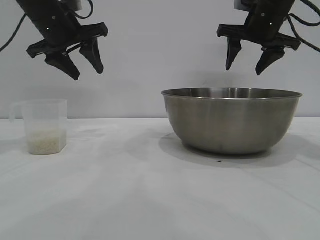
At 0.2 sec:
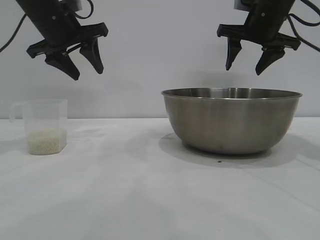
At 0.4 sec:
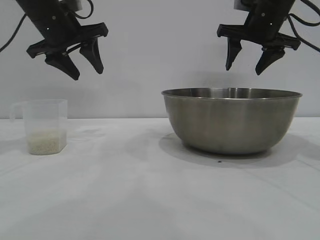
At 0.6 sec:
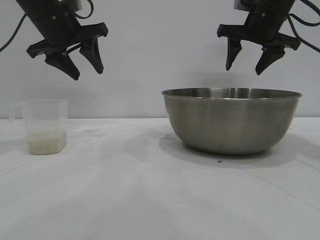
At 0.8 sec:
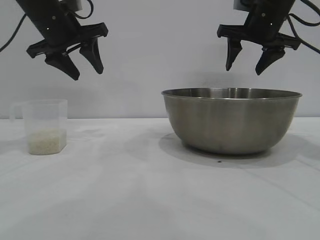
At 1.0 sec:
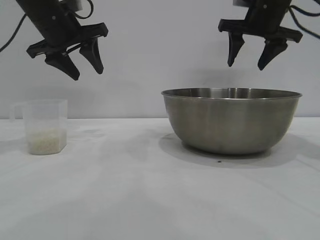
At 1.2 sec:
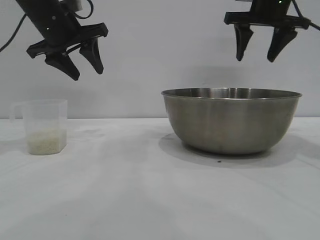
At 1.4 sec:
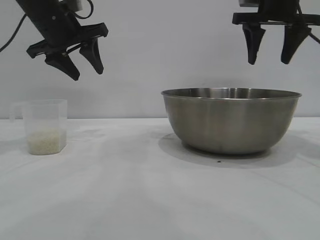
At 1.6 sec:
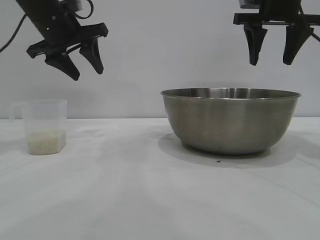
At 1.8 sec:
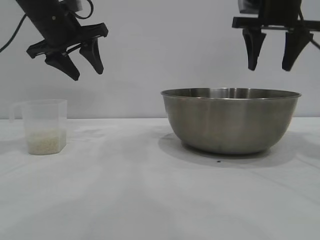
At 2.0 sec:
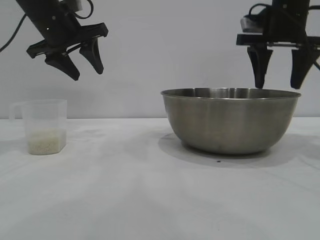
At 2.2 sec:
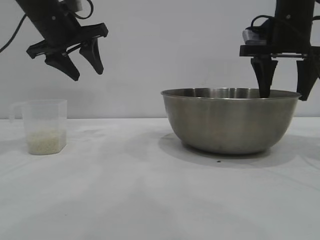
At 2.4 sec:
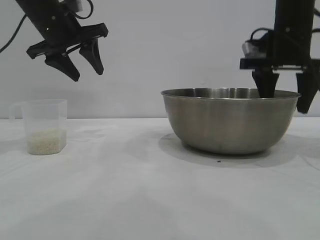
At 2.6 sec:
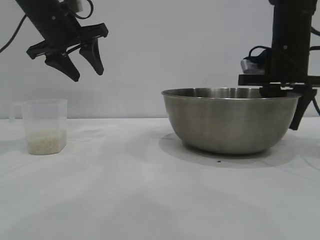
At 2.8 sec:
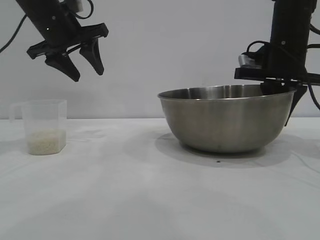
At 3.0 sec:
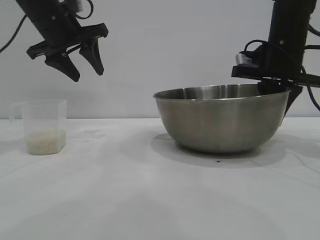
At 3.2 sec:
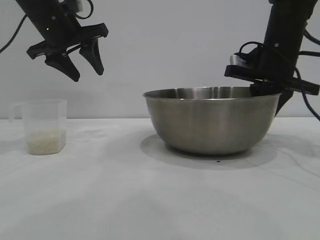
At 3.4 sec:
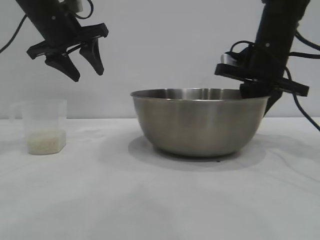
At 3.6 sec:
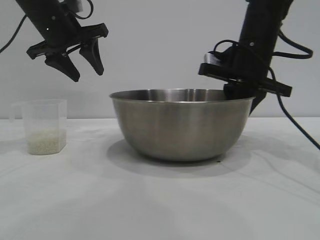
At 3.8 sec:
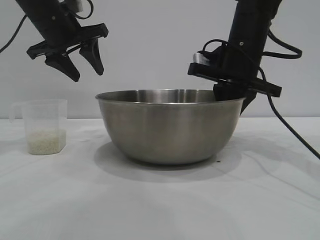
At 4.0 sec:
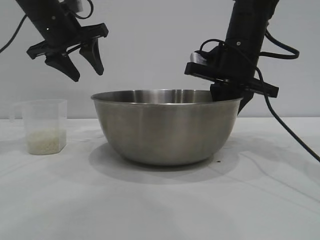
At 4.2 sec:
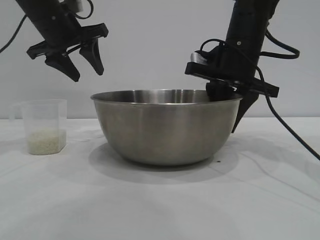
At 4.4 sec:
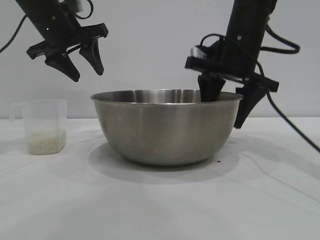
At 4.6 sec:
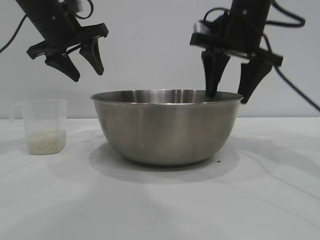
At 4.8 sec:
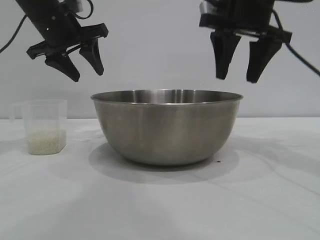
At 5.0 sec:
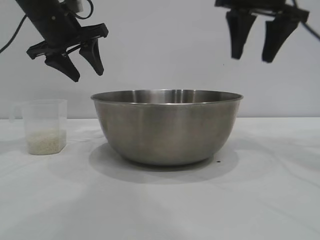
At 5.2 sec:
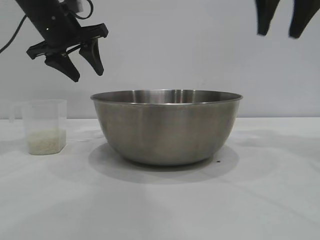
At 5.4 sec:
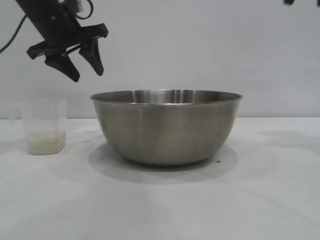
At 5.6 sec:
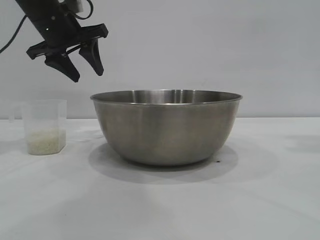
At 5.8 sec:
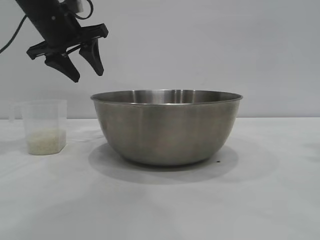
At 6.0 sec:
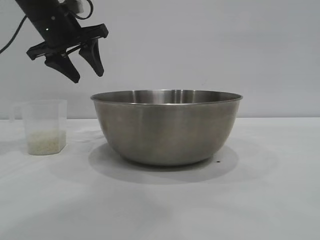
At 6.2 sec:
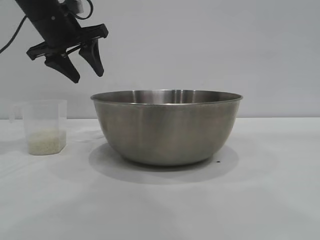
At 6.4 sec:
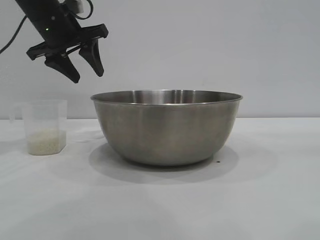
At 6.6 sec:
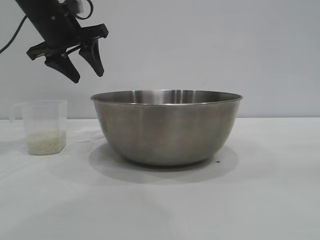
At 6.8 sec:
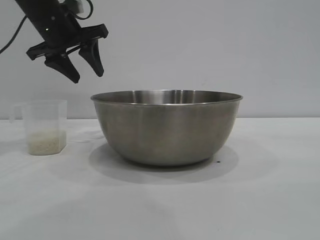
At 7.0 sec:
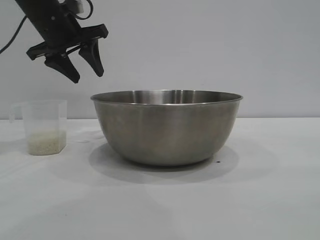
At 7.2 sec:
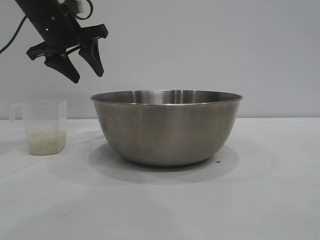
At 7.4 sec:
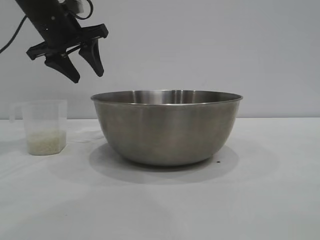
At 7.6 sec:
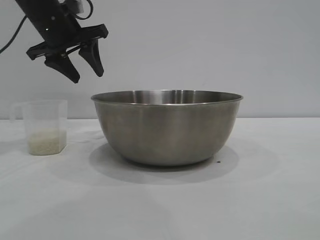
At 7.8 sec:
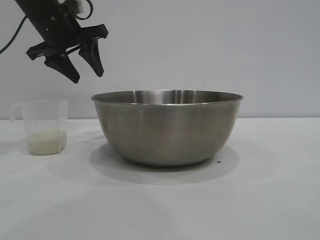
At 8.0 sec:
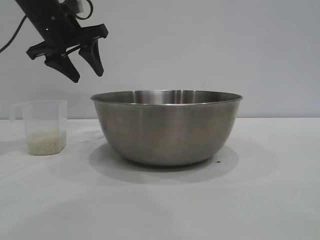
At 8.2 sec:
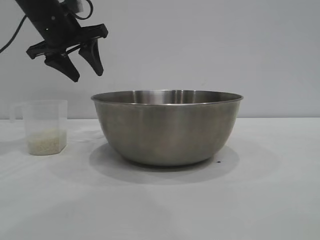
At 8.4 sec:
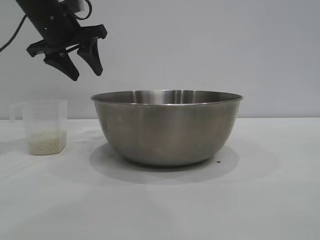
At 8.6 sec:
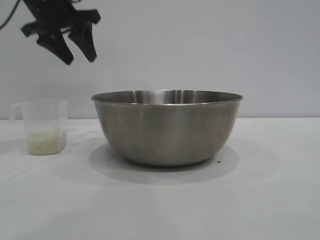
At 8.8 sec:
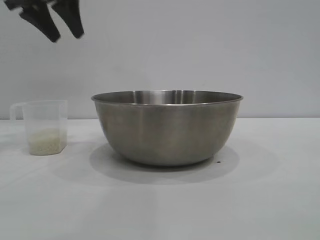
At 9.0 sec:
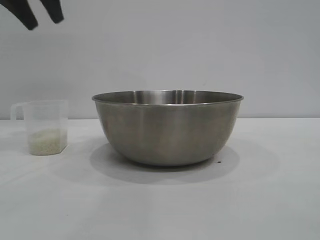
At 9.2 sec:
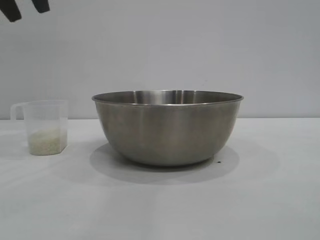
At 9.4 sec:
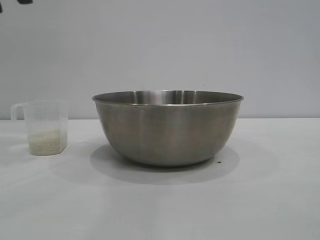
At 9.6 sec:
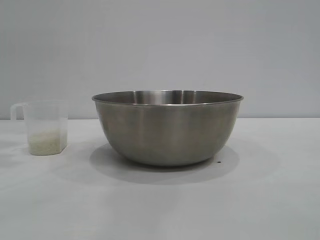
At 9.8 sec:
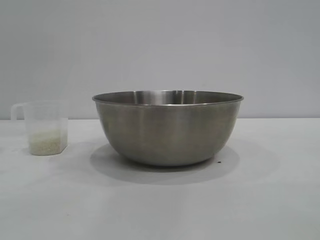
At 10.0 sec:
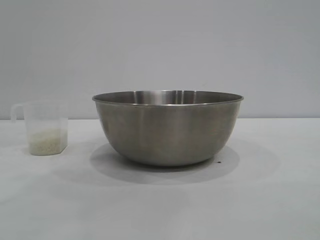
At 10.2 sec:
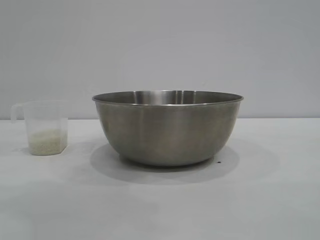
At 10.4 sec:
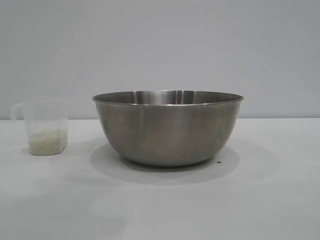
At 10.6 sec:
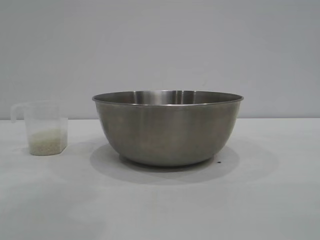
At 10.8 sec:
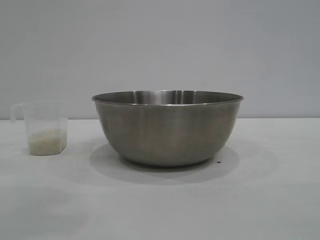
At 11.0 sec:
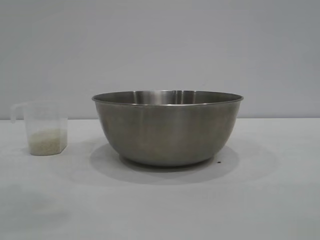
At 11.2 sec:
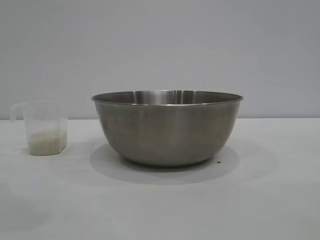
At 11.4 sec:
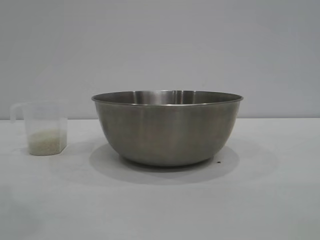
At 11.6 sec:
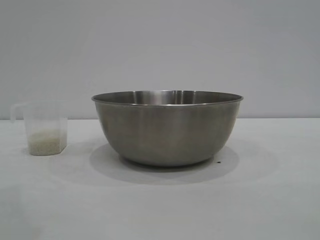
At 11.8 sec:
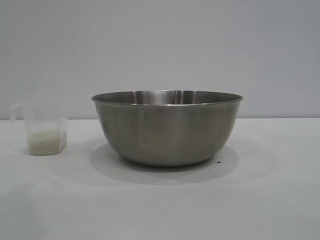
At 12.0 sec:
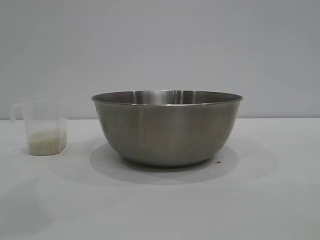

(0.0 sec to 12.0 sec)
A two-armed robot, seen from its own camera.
Task of the whole recording: the right gripper grasp the rice container and place it in the center of the table, the left gripper grasp the rice scoop and pour the rice into the rice container.
Step, 0.0 sec - 4.8 sec: Move the bowl to the center of view with the right gripper.

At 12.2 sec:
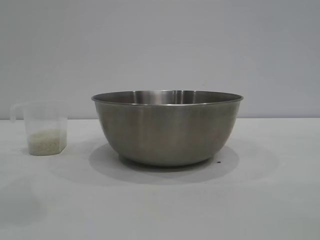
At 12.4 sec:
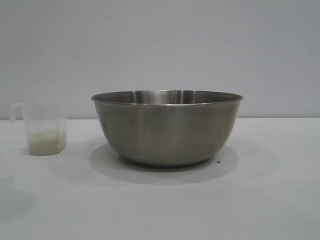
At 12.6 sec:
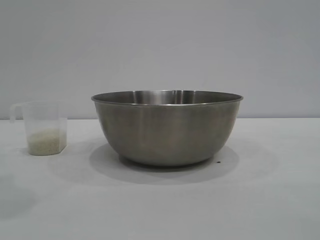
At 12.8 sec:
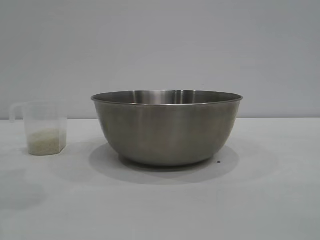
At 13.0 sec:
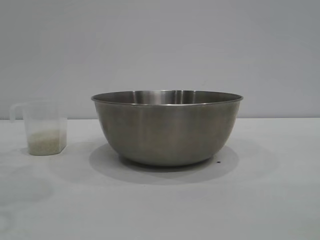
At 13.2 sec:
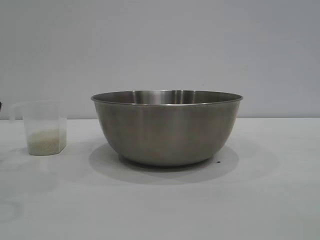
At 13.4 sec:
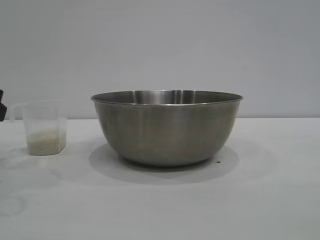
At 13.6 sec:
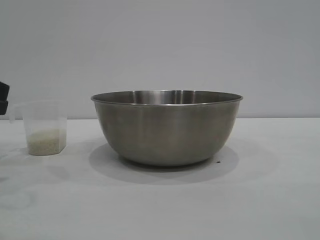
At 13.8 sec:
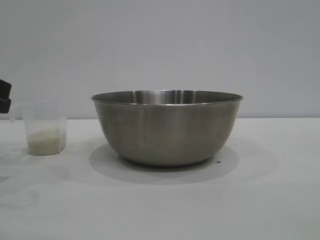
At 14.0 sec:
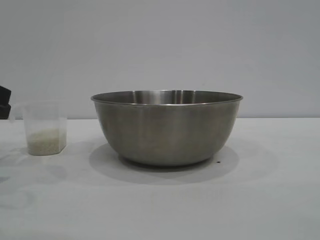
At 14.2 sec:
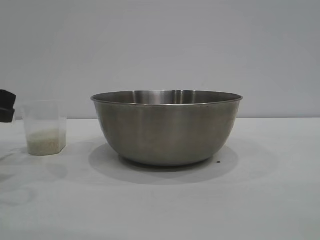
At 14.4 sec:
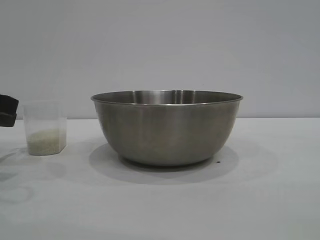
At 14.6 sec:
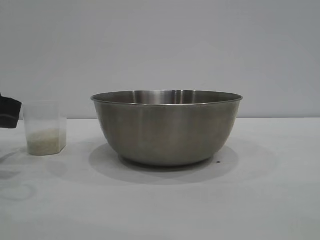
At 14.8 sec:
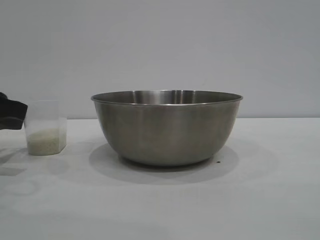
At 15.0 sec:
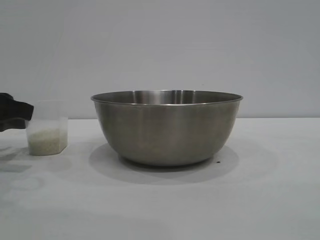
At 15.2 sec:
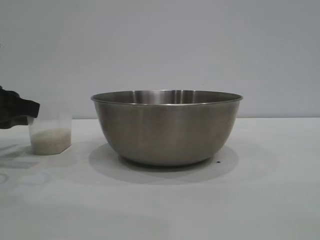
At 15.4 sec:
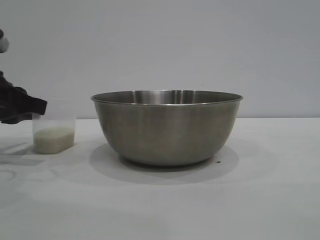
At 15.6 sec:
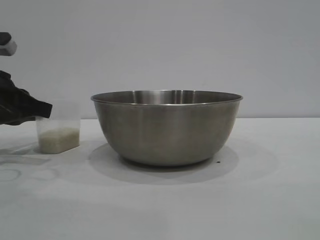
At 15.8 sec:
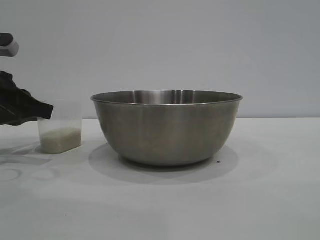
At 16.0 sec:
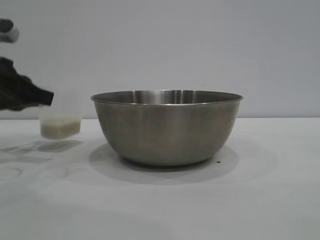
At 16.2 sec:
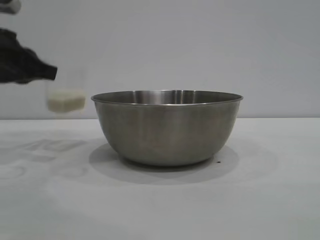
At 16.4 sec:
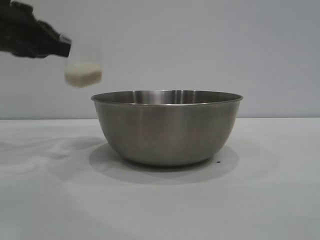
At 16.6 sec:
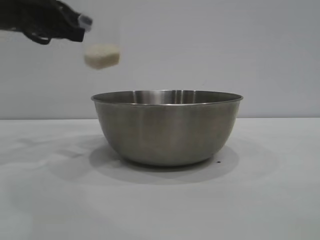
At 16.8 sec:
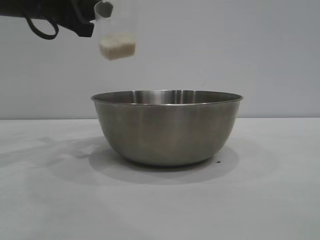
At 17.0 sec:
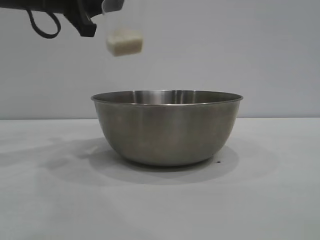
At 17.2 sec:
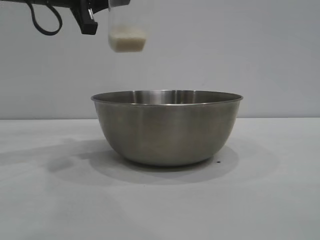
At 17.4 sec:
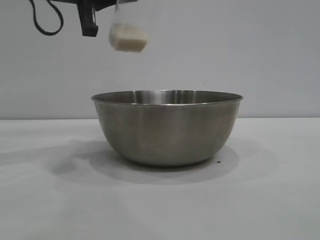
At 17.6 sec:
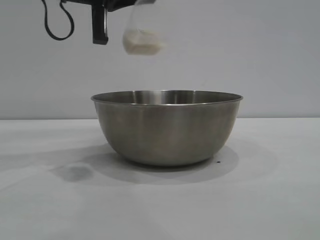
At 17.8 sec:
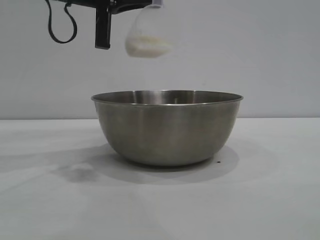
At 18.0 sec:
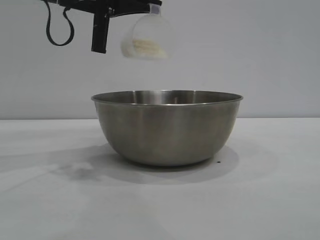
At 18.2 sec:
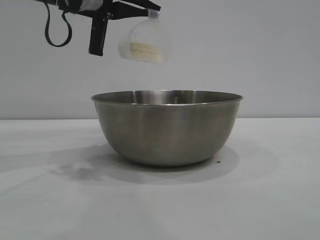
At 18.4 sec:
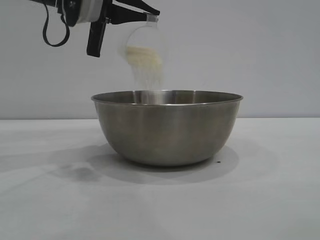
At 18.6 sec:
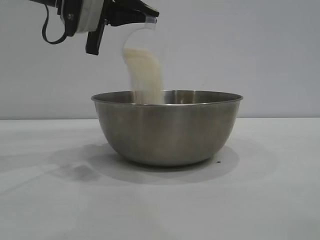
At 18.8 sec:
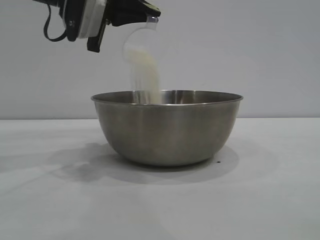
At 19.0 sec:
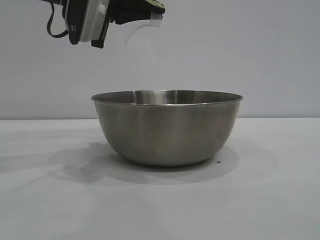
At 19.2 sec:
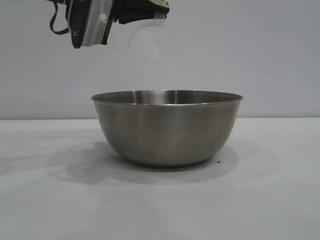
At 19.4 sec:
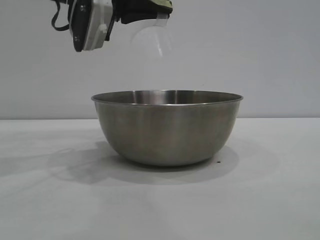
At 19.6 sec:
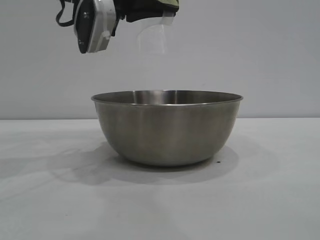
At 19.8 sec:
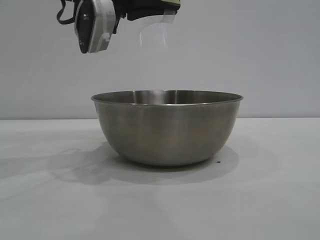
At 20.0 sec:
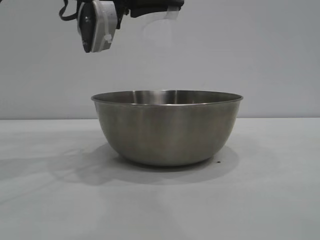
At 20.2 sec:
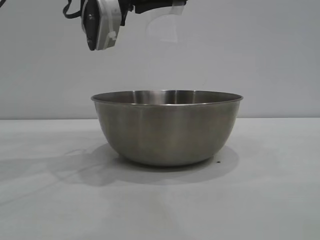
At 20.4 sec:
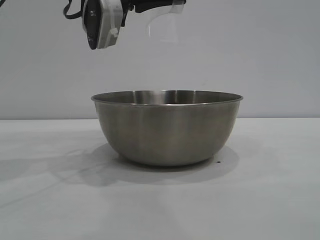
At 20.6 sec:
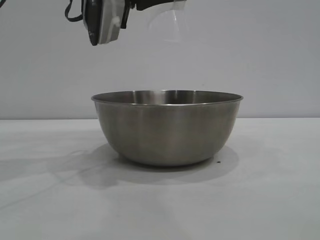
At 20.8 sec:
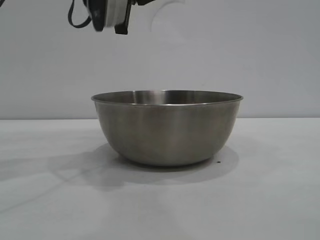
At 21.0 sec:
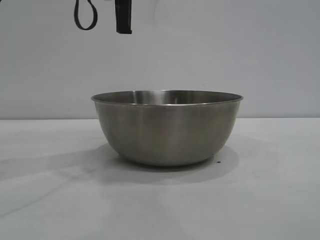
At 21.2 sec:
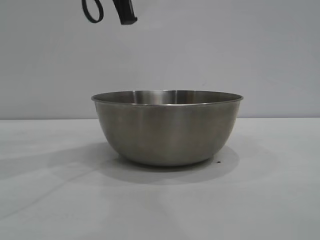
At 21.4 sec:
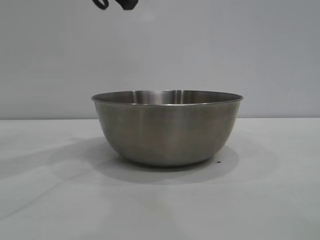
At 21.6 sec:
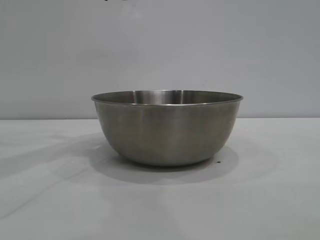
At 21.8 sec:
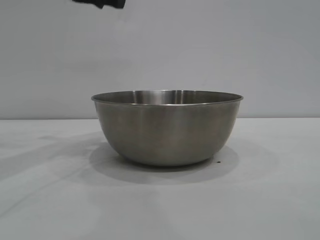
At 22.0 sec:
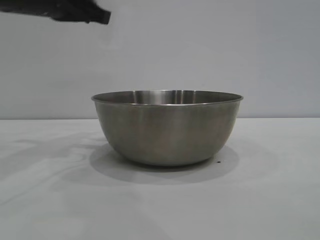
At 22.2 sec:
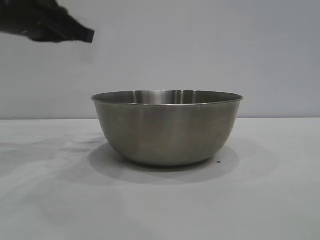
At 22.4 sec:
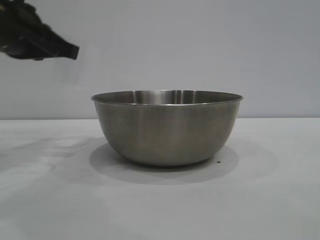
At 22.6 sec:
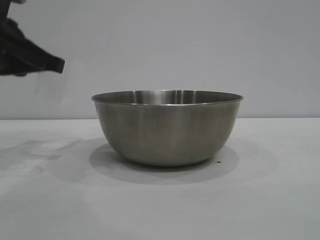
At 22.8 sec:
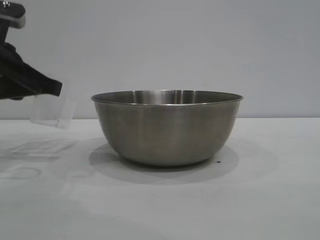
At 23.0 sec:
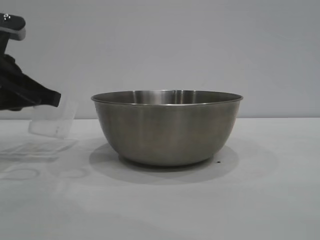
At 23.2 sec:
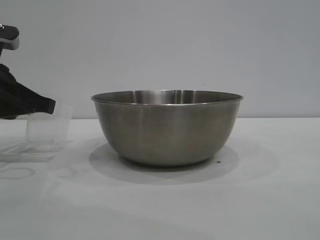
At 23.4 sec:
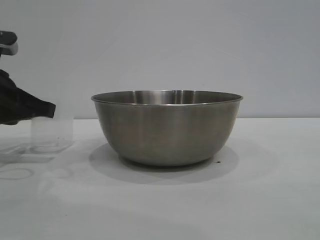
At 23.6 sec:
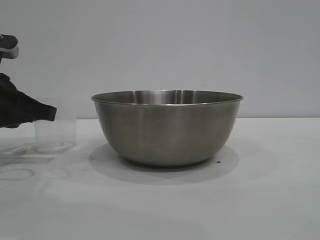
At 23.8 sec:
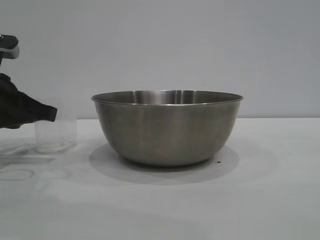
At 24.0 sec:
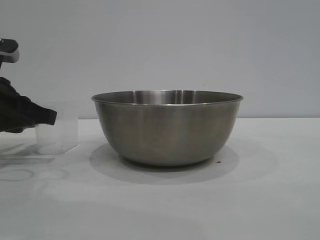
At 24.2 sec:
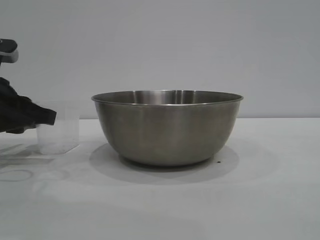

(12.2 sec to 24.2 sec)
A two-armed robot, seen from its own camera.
Task of the whole recording: the right gripper grasp the rice container and place it in the center of the table, the left gripper grasp the rice scoop and pour the rice into the rice container.
Step, 12.2 sec - 16.2 sec: Pick up the cup with rice in it with the left gripper.
Step, 16.4 sec - 20.0 sec: Pour the rice from the cup into the bowl with the left gripper.
